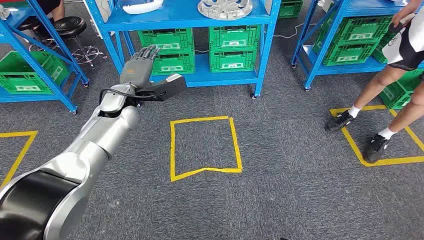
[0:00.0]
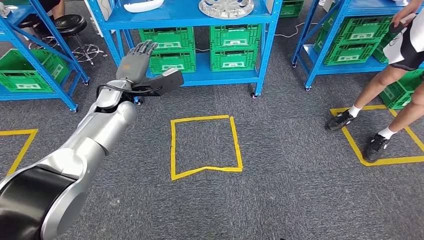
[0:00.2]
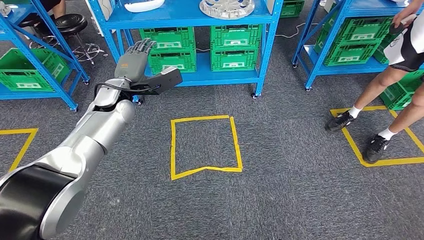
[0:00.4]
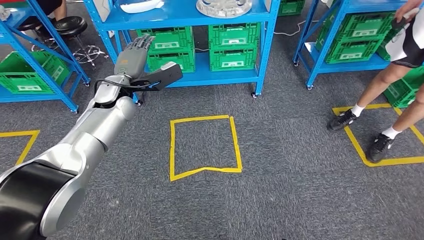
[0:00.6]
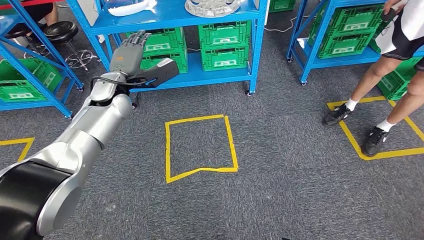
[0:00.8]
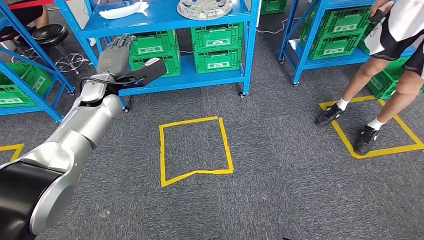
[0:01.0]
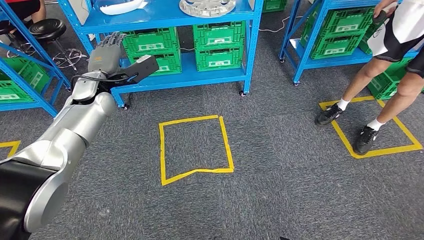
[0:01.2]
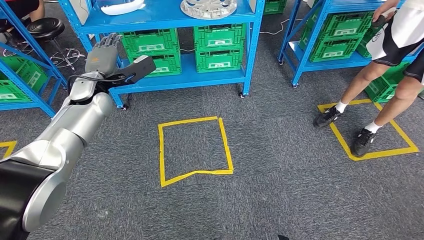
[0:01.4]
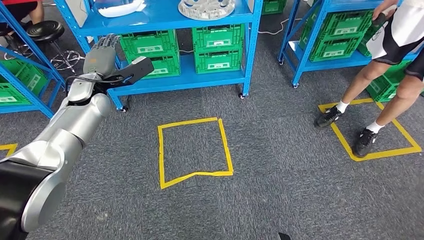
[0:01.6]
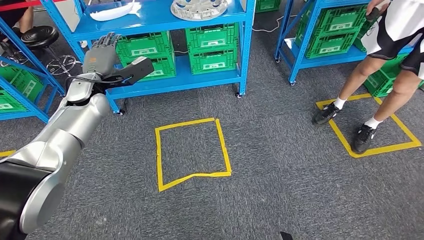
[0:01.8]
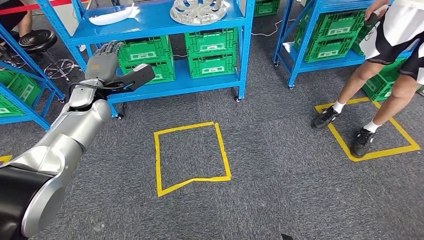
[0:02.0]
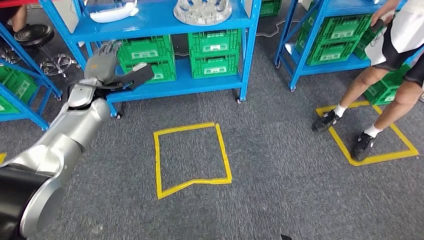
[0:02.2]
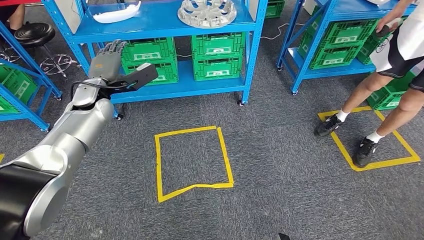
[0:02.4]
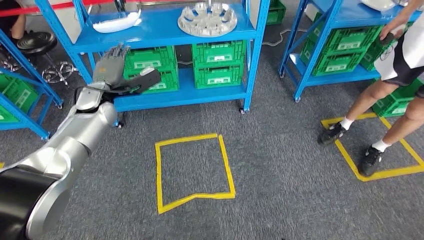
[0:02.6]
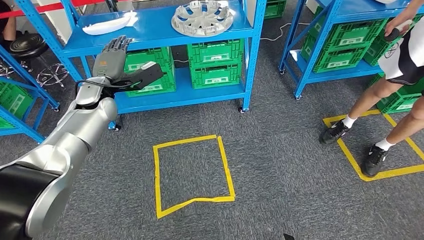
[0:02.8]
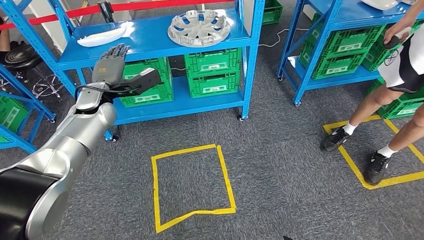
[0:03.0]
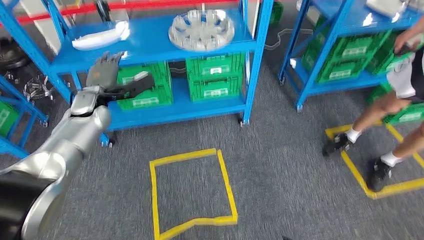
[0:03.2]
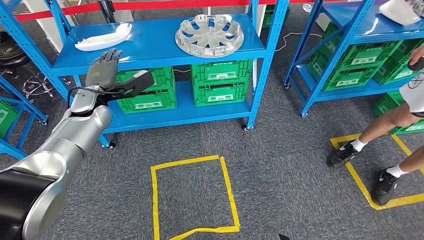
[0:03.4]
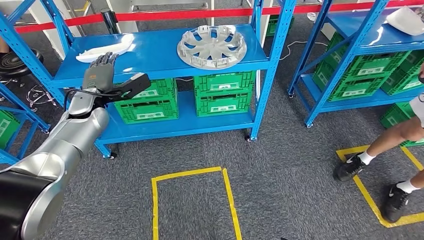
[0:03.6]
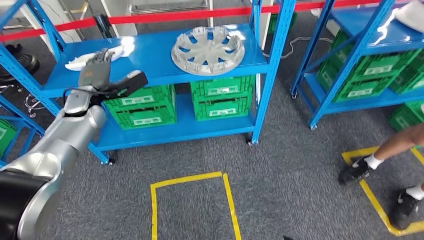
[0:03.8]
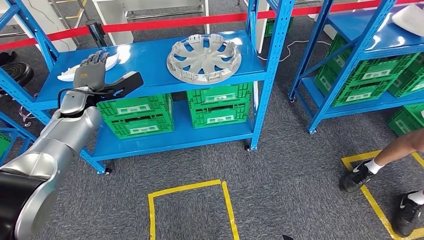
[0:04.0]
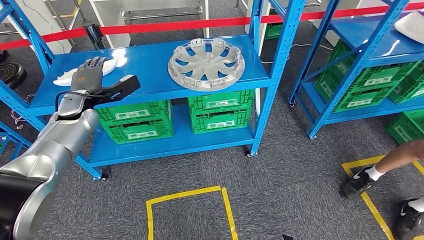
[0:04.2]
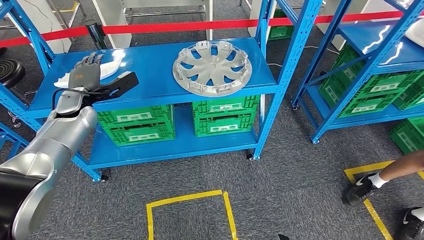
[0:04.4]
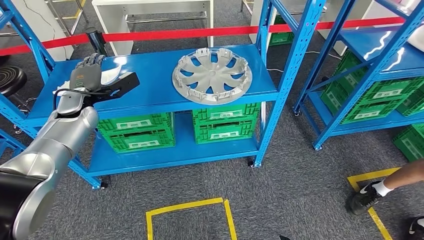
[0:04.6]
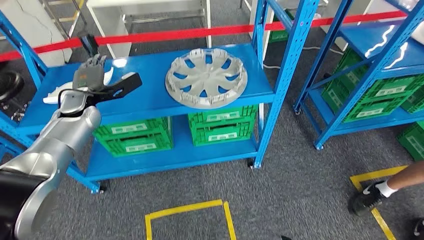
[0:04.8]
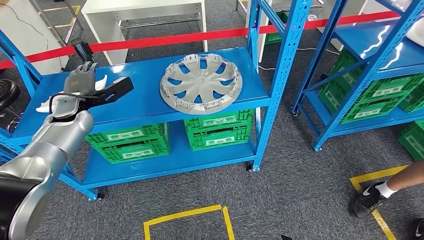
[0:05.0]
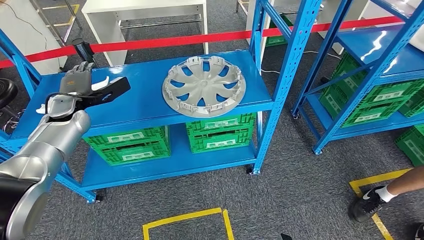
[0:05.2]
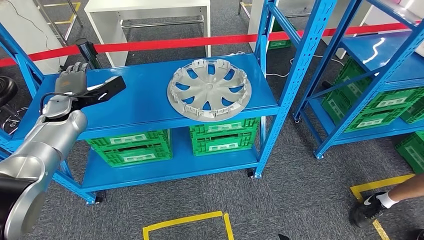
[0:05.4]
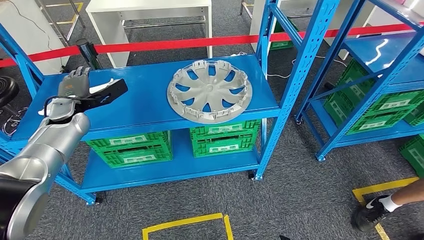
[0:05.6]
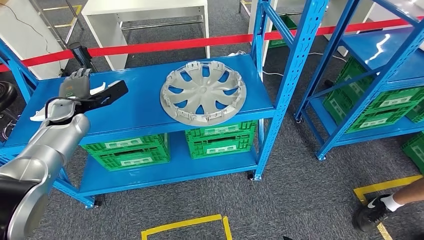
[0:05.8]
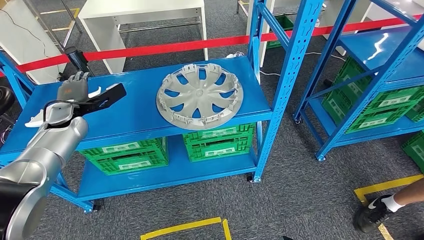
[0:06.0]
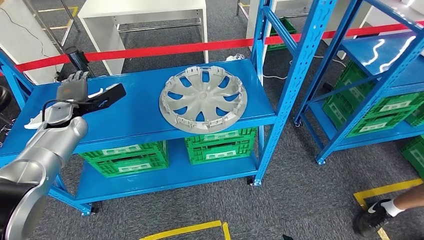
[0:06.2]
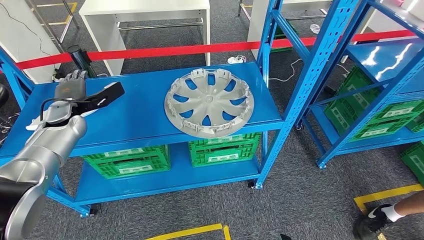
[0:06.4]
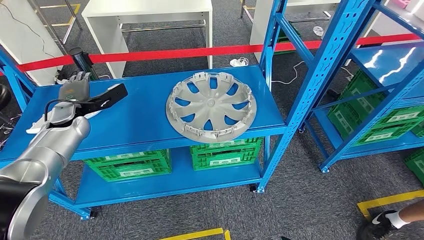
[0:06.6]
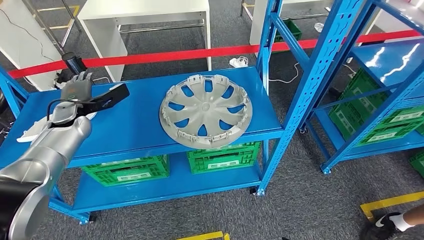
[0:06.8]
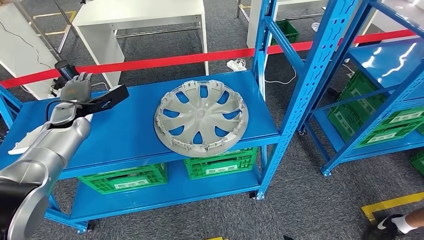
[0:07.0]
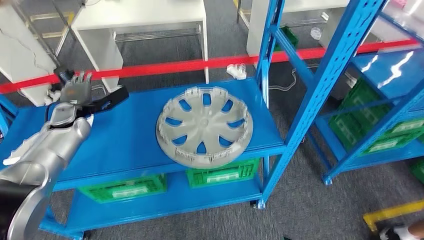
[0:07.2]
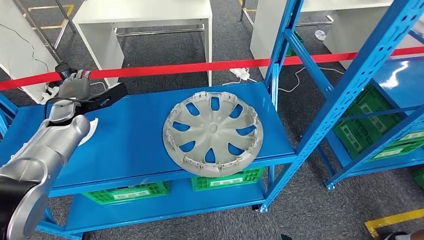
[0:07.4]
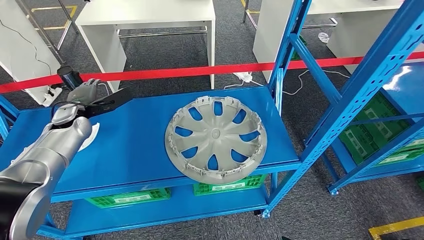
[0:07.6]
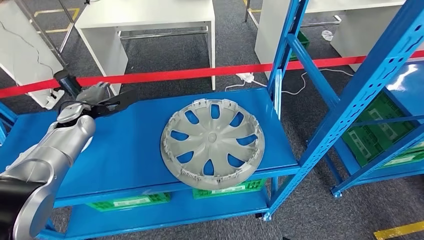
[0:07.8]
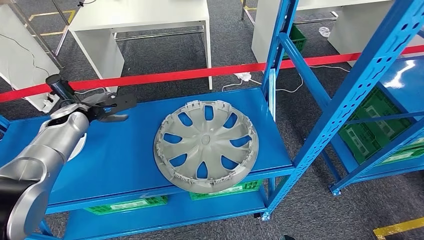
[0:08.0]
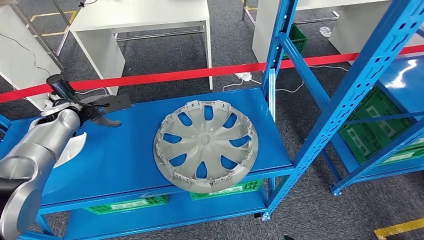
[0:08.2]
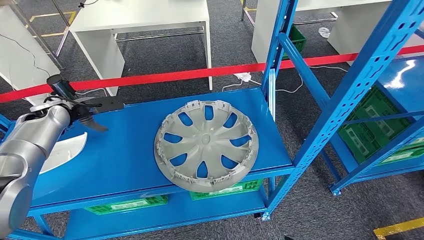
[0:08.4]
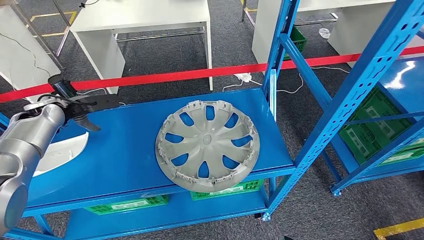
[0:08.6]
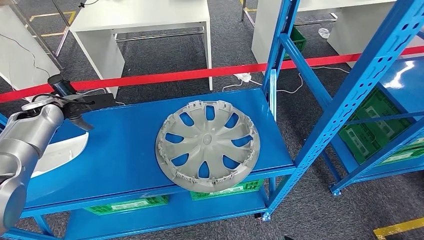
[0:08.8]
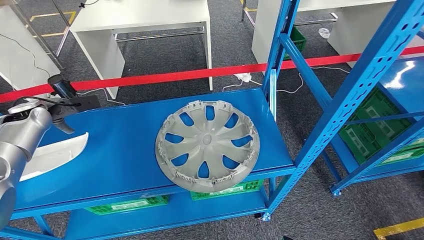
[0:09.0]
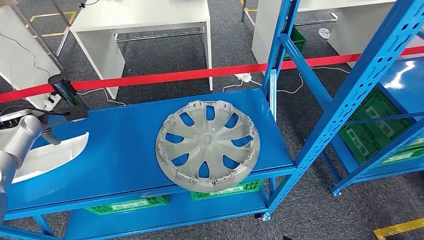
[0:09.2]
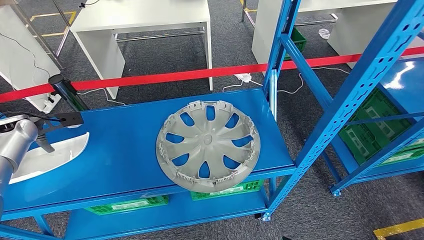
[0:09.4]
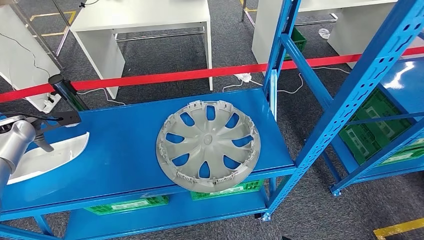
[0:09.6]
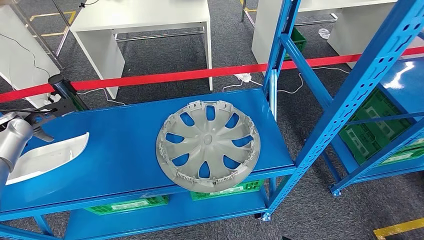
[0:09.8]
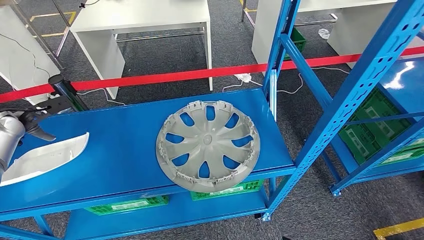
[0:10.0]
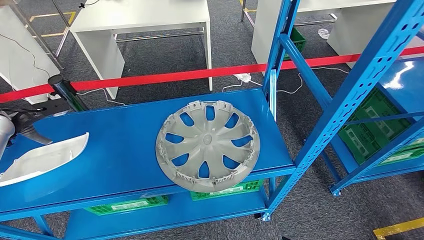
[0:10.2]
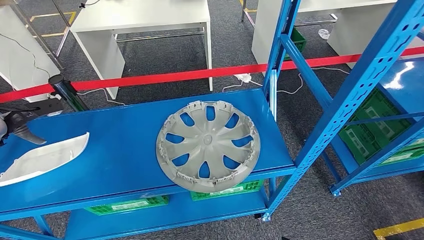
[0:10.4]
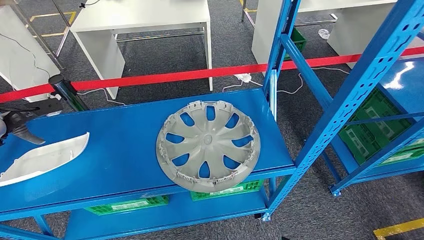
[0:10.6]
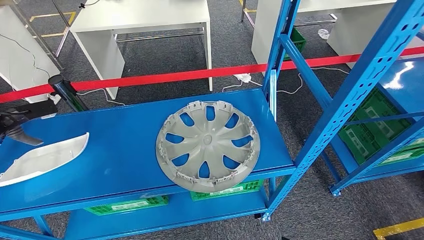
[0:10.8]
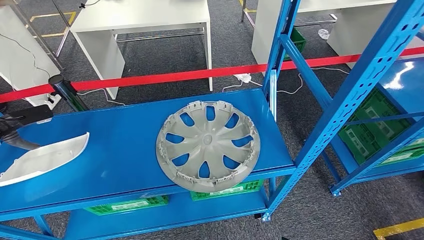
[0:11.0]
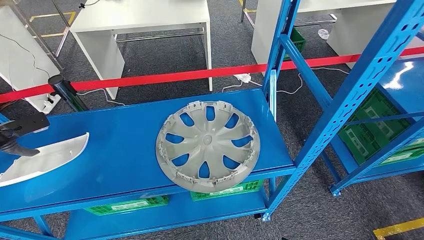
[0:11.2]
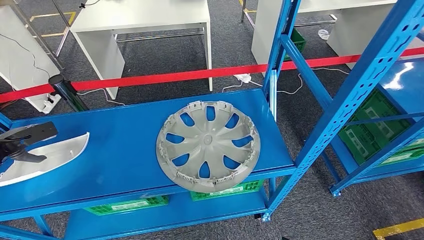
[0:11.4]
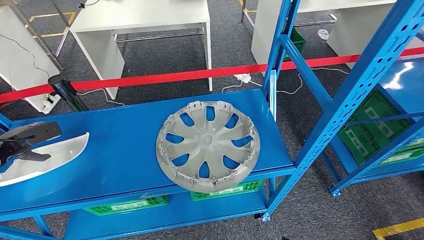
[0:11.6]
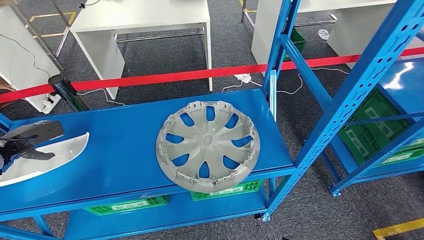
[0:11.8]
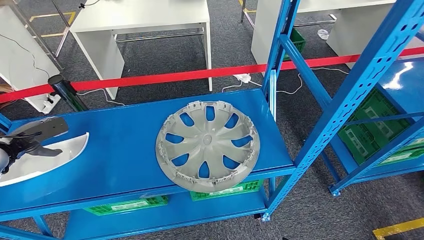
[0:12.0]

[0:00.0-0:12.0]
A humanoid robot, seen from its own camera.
0:09.0 to 0:10.4: The left hand moves to the left, roughly 10 cm.
0:10.4 to 0:12.0: The left hand moves downward and backward, roughly 10 cm.

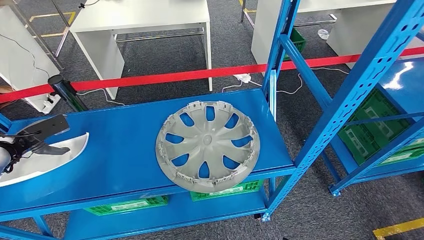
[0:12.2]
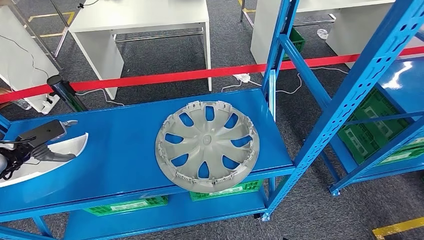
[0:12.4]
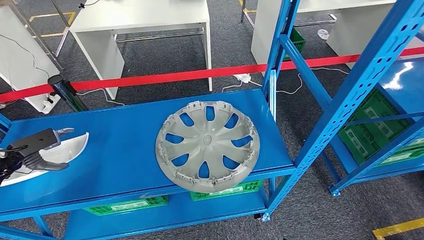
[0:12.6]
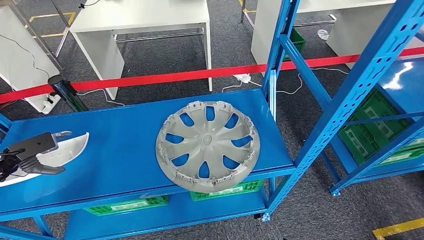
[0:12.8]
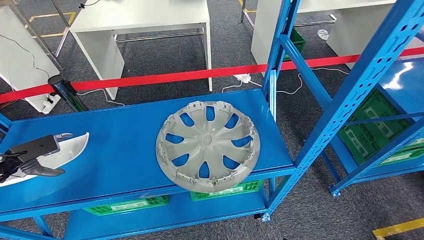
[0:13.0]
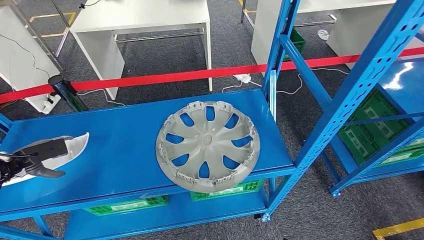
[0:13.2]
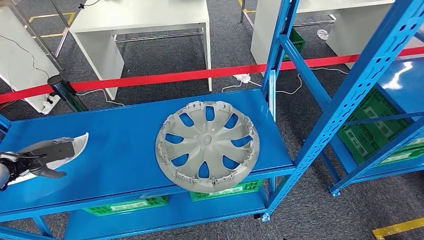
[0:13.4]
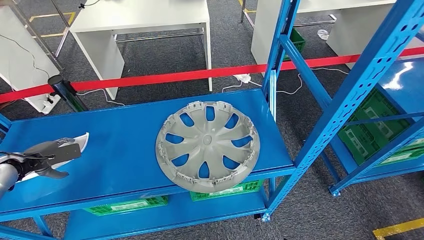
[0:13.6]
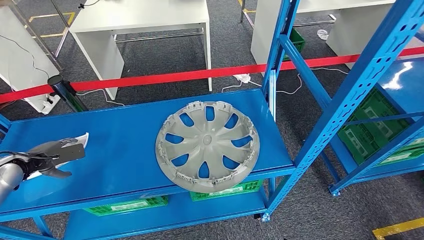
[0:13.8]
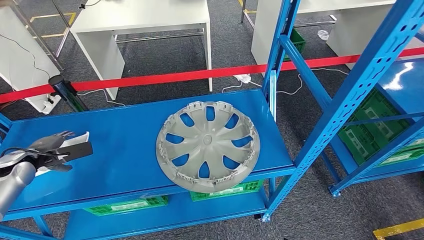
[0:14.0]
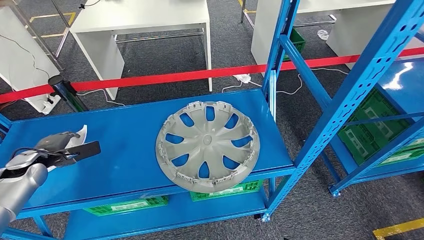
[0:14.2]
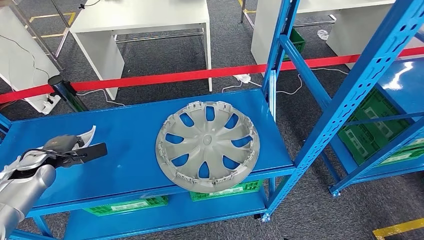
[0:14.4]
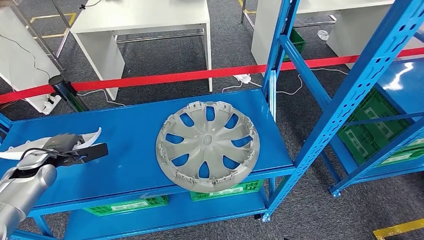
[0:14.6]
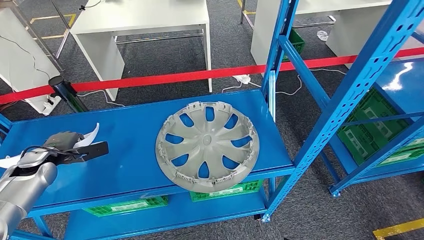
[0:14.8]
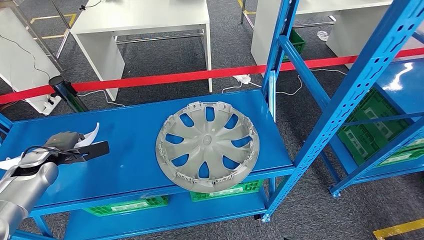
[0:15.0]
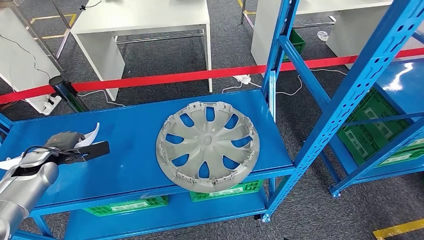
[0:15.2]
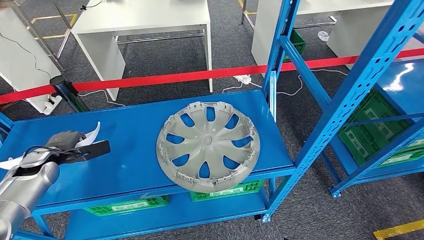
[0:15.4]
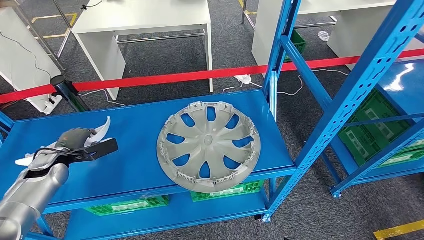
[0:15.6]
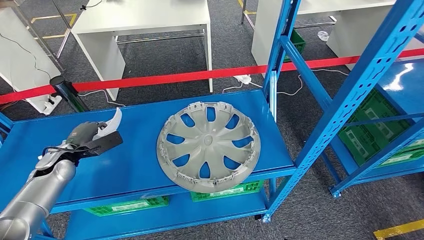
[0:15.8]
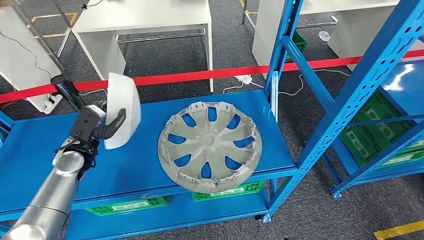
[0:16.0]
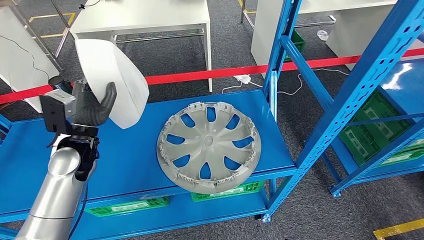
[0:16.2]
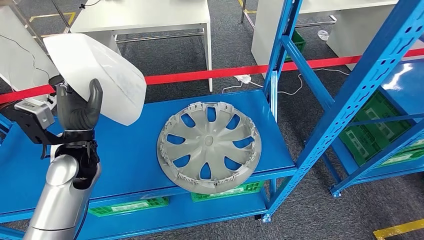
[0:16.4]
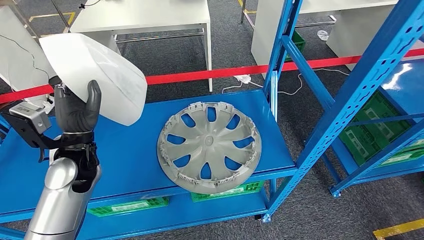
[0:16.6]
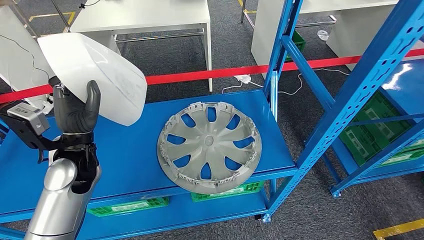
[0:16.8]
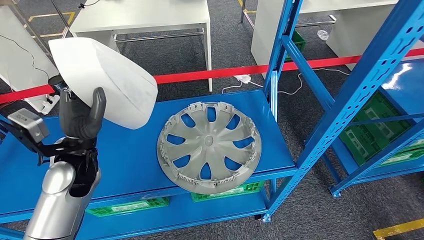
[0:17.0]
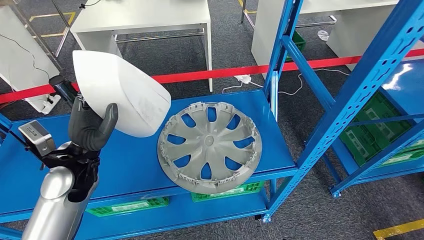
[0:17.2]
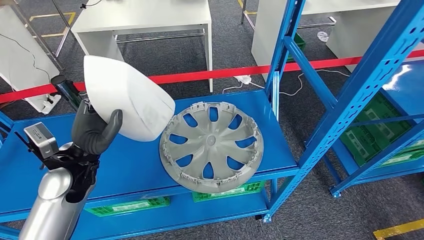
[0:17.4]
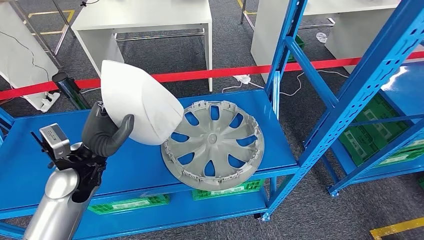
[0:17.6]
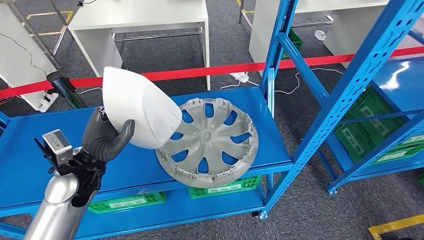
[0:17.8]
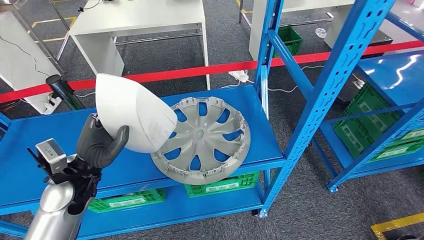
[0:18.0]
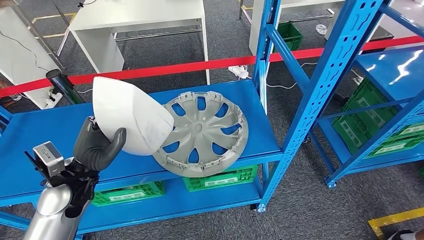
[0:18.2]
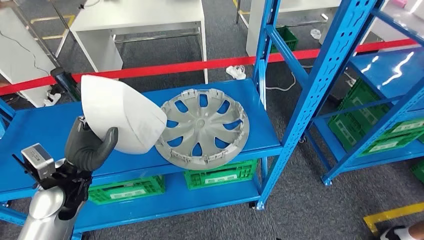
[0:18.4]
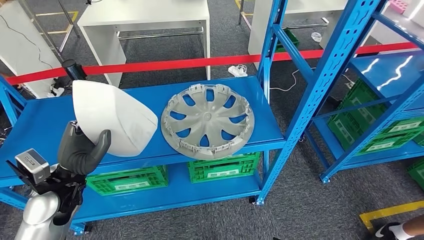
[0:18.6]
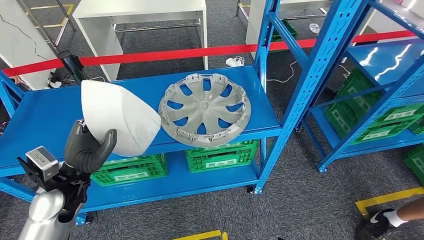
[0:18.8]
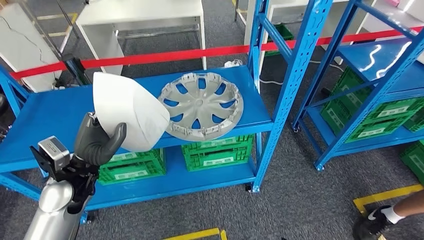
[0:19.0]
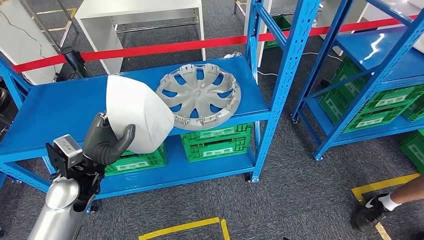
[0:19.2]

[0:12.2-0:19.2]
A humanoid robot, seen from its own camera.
Step, 0:12.2 to 0:16.4: Pick up the small component from the shelf.
0:12.2 to 0:13.6: The hands move only a little.
0:13.6 to 0:15.0: The left hand goes about 5 cm to the right.
